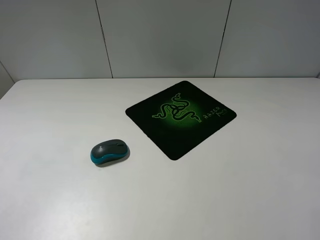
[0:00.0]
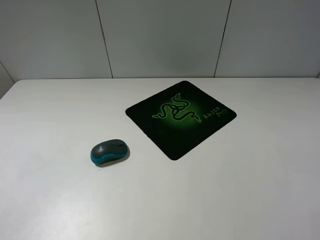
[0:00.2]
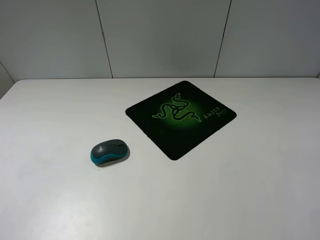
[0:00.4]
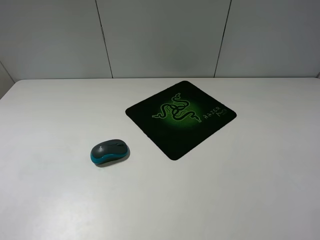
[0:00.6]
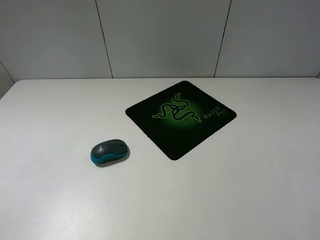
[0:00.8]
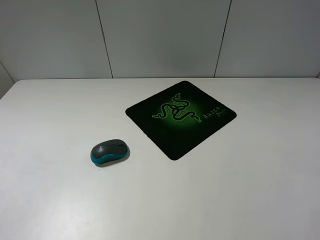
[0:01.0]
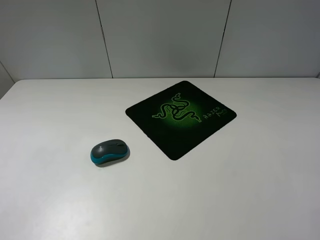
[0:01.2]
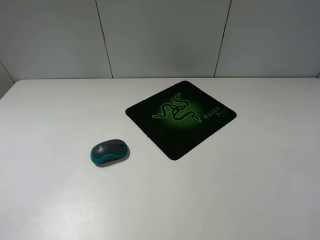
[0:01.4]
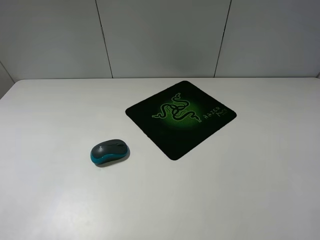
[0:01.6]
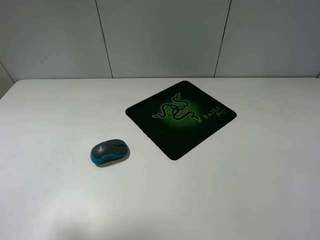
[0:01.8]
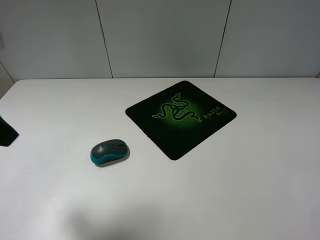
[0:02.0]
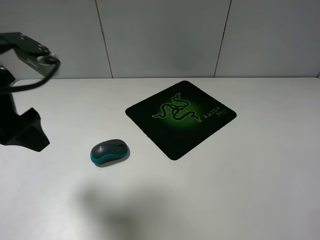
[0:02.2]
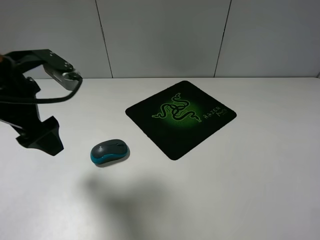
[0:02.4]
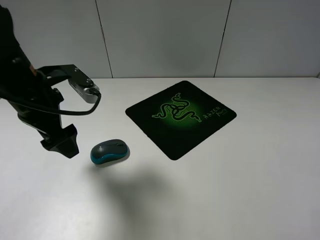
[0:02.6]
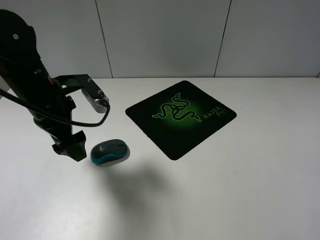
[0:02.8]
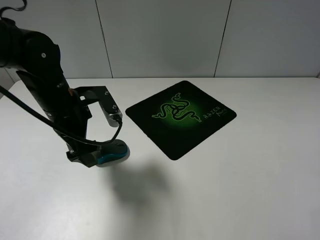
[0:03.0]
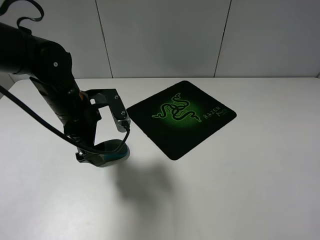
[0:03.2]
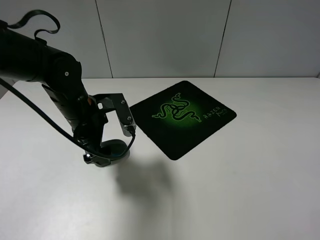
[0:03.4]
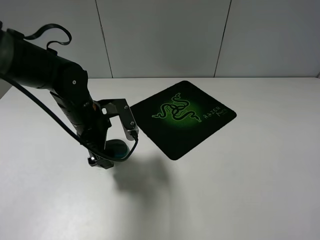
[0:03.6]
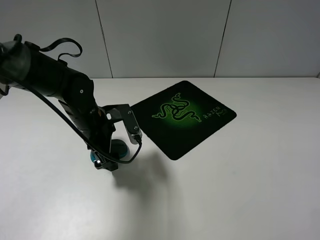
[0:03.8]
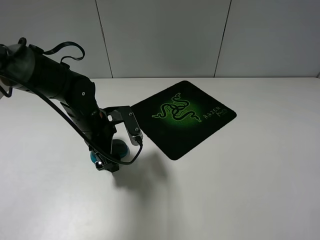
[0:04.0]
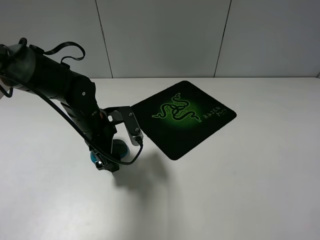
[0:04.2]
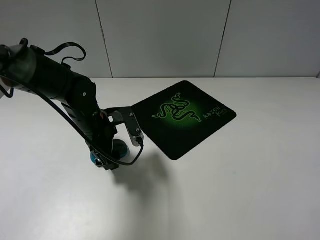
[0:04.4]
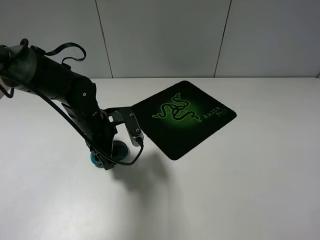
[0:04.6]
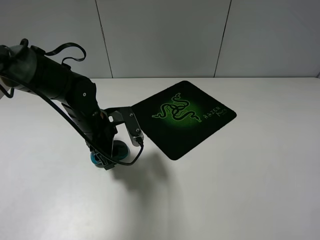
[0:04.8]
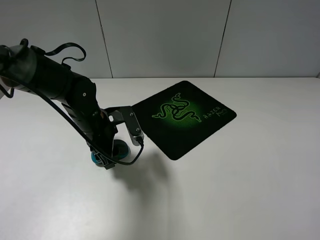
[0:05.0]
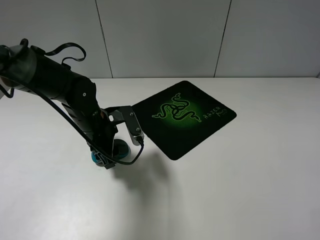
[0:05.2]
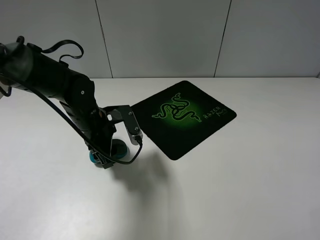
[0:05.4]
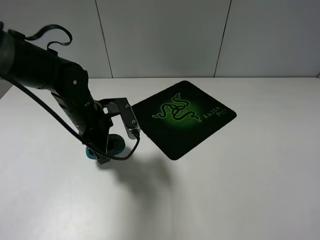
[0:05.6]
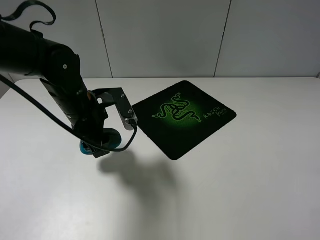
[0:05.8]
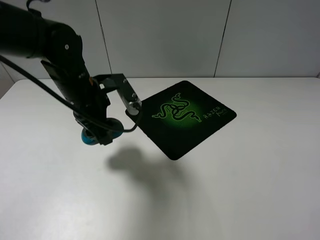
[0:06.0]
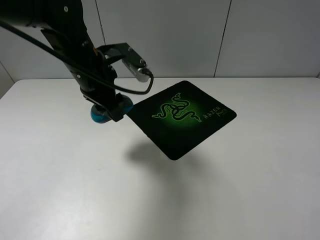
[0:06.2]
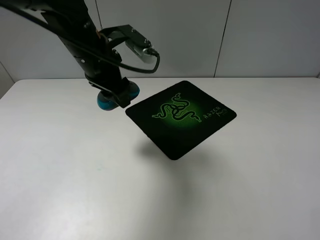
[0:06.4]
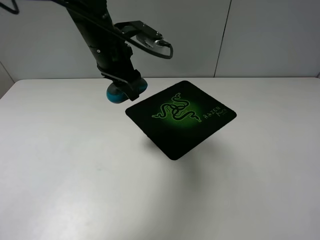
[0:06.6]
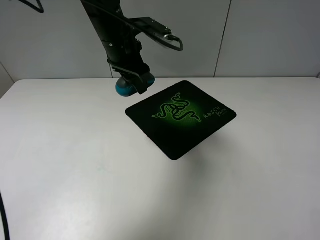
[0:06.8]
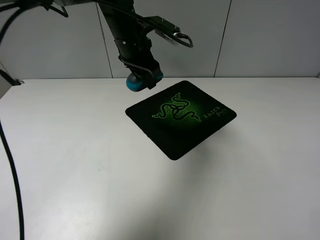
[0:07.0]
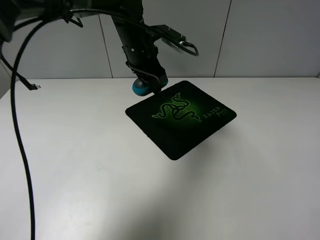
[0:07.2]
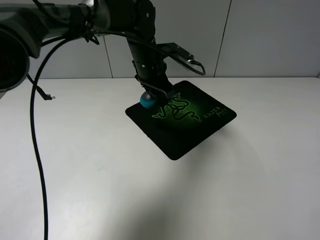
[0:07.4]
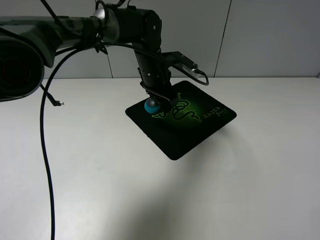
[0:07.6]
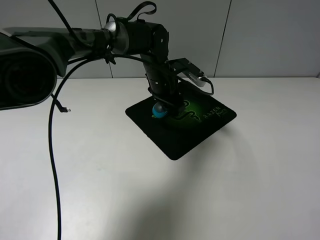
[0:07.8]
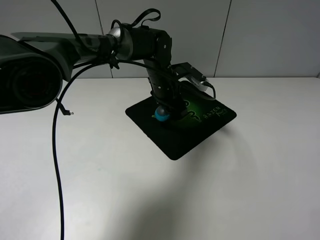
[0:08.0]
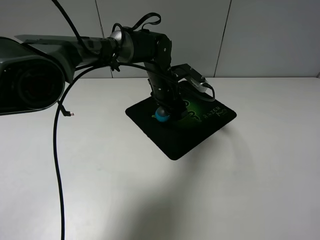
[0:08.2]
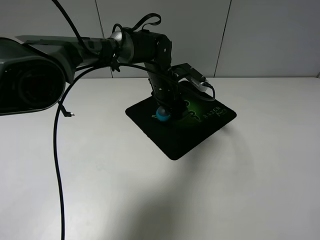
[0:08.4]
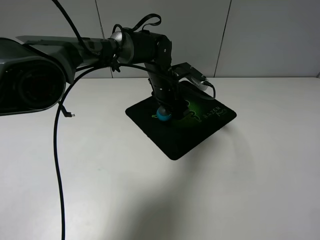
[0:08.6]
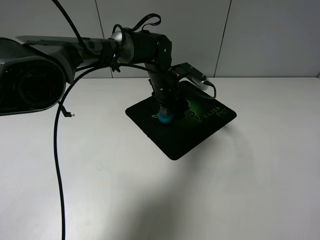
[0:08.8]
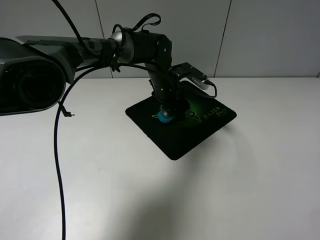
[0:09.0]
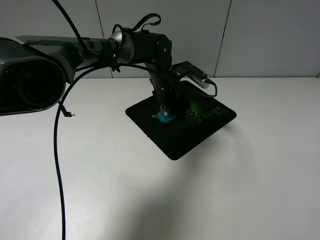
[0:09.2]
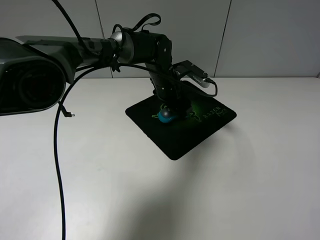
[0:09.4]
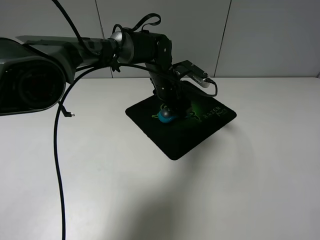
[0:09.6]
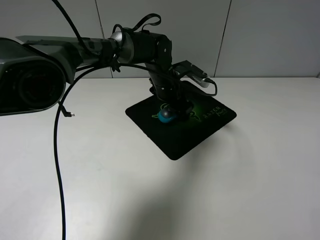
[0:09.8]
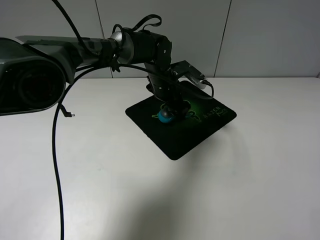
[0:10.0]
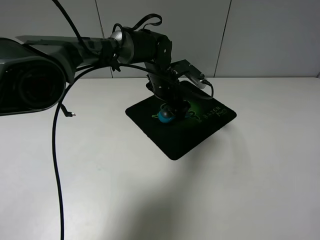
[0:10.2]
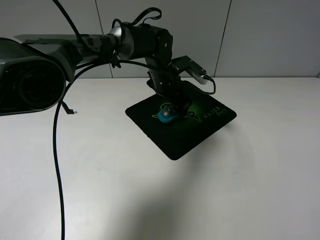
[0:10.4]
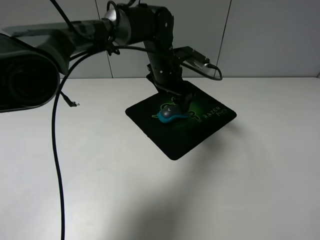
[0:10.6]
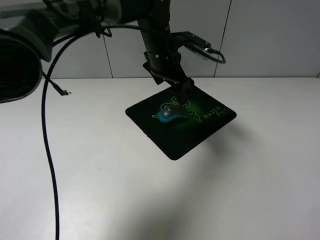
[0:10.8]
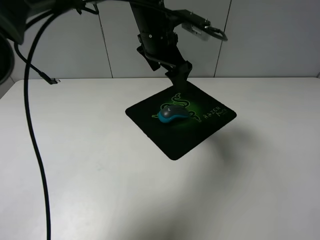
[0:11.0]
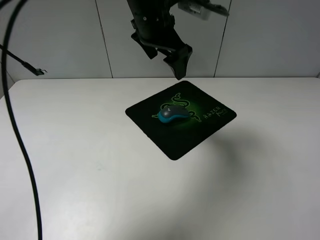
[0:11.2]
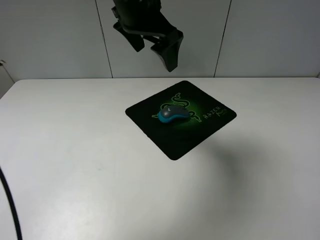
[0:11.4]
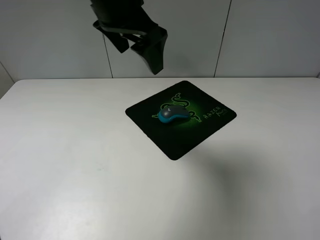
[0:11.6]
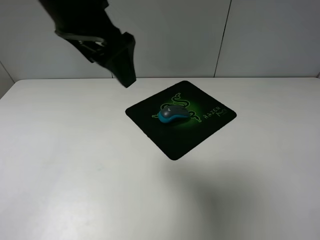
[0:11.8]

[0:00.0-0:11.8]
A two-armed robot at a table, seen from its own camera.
Step, 0:00.0 to 0:04.8: Grasp the mouse with the left gripper.
Step, 0:05.0 to 0:10.4: Place the mouse on the mouse mat with the left gripper.
0:01.4 to 0:03.0: The left gripper travels forward, downward and to the right by roughly 30 cm.
0:03.0 to 0:04.4: The left gripper shifts some 5 cm downward, and closes its fingers.
0:04.4 to 0:06.0: The left gripper shifts approximately 10 cm upward, and closes.
0:06.0 to 0:07.4: The left gripper heads forward and to the right, covering roughly 15 cm.
0:07.4 to 0:08.8: The left gripper shifts approximately 5 cm downward.
0:08.8 to 0:10.4: The left gripper opens its fingers.
0:10.4 to 0:11.8: The left gripper heads upward, backward and to the left, covering approximately 30 cm.

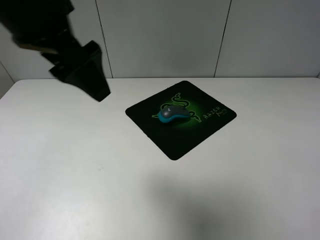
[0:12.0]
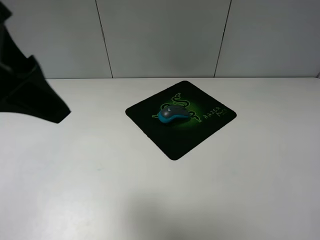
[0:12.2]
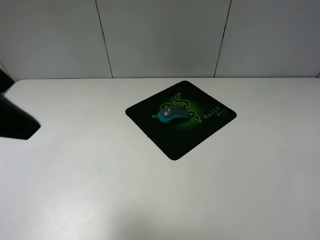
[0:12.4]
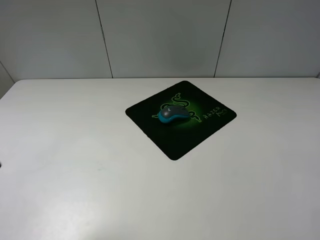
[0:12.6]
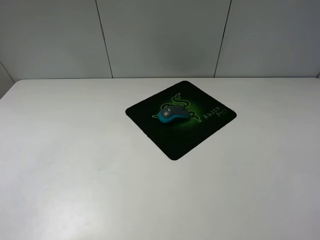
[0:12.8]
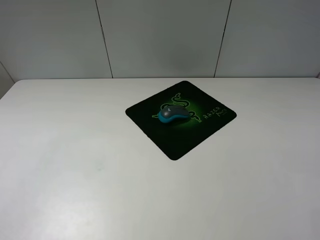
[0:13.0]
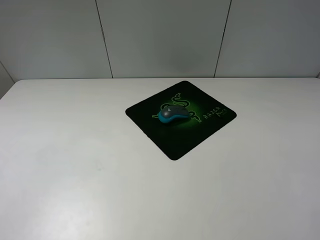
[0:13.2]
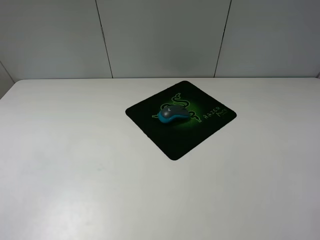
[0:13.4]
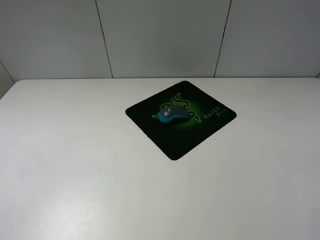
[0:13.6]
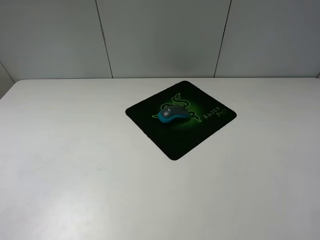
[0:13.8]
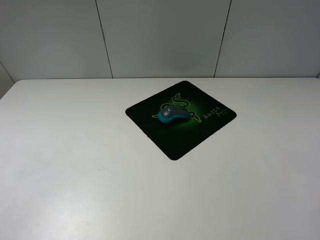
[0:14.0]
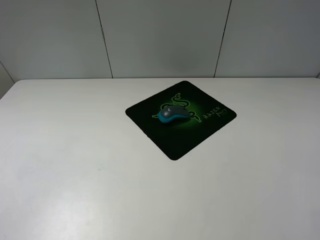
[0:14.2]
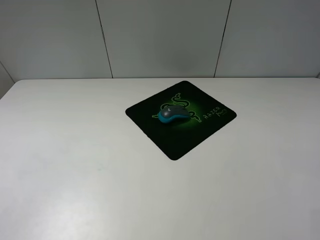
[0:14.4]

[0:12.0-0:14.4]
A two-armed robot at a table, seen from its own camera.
0:12.0 to 0:13.2: The left gripper travels backward, to the left and downward by approximately 25 cm.
